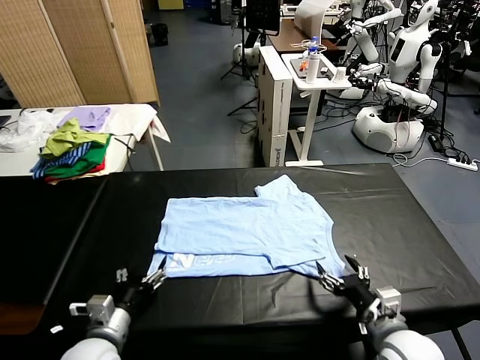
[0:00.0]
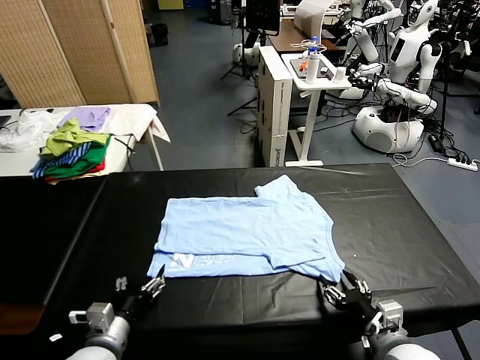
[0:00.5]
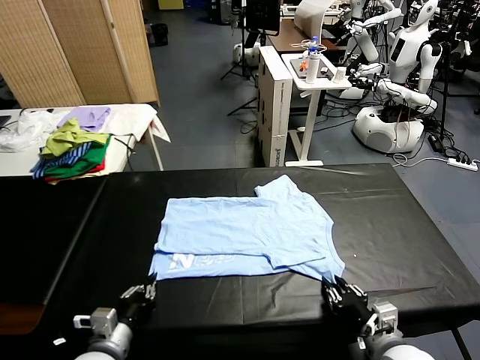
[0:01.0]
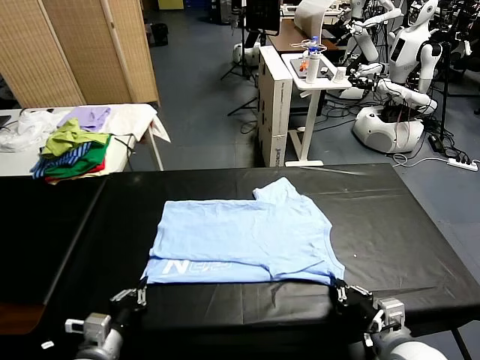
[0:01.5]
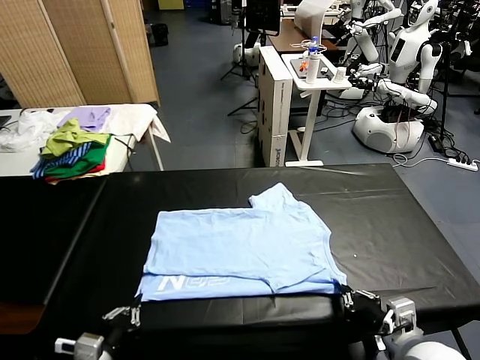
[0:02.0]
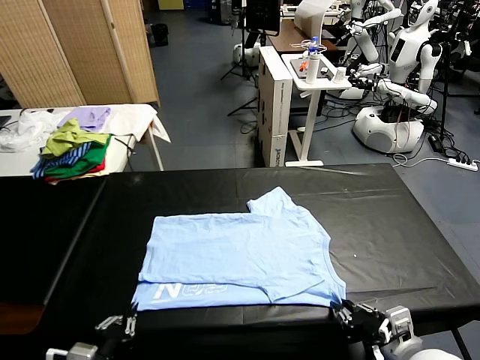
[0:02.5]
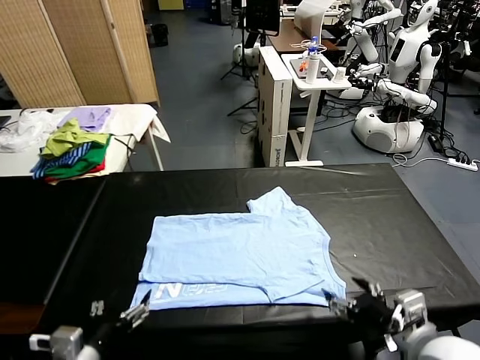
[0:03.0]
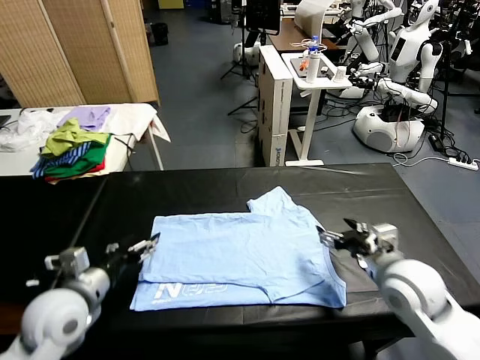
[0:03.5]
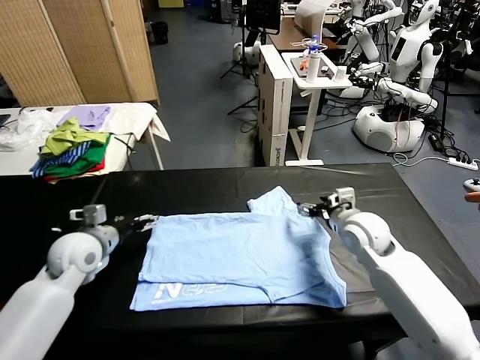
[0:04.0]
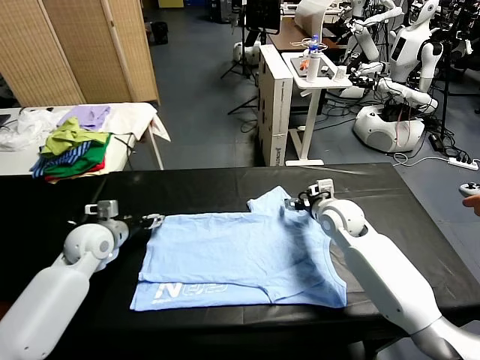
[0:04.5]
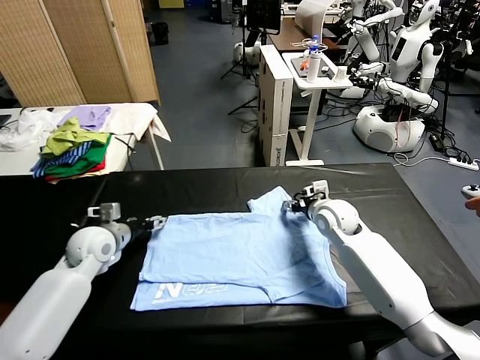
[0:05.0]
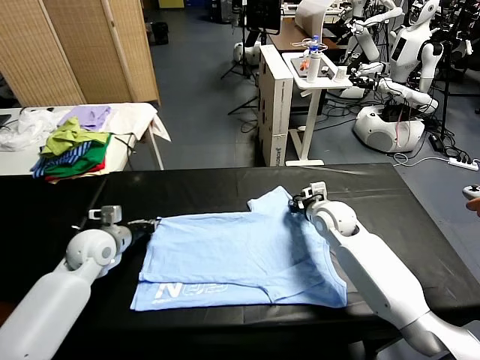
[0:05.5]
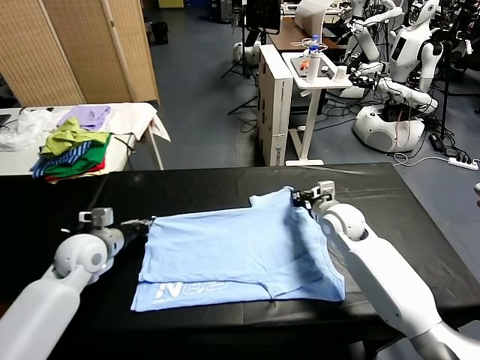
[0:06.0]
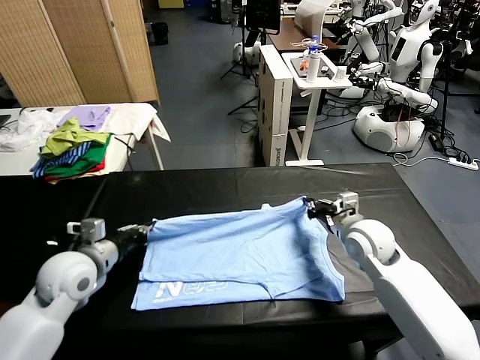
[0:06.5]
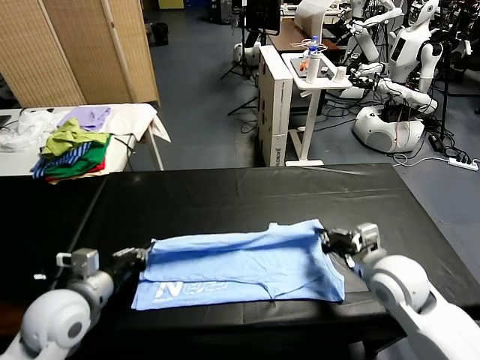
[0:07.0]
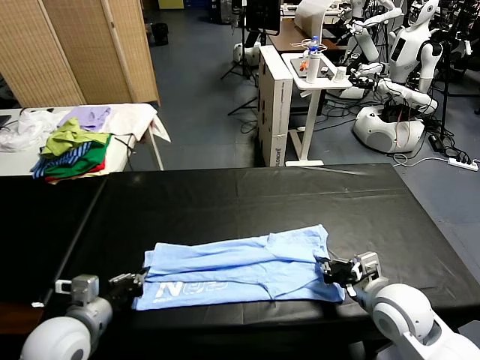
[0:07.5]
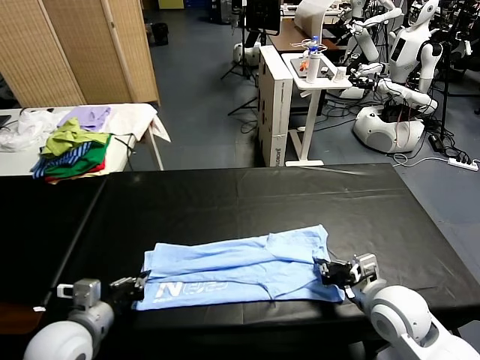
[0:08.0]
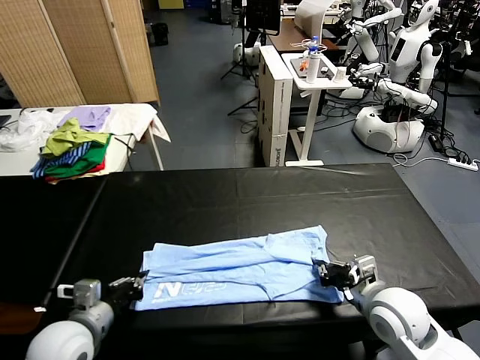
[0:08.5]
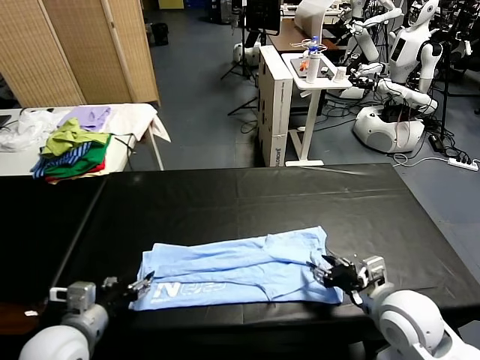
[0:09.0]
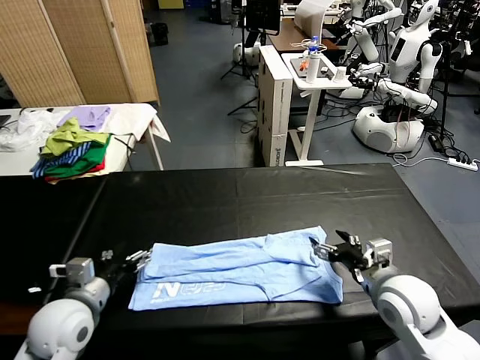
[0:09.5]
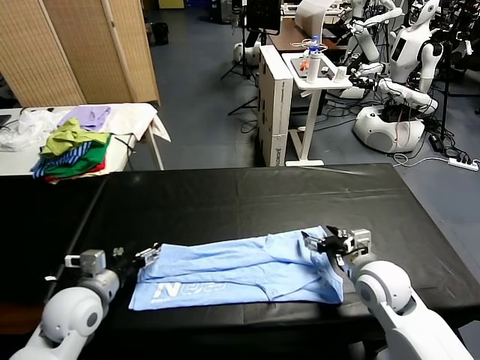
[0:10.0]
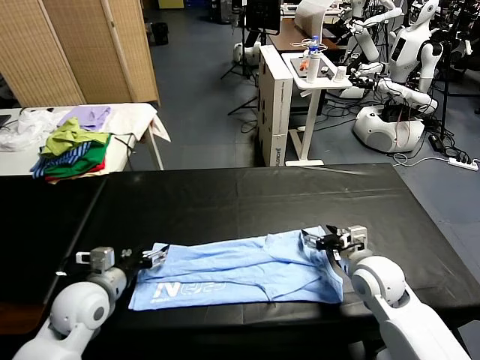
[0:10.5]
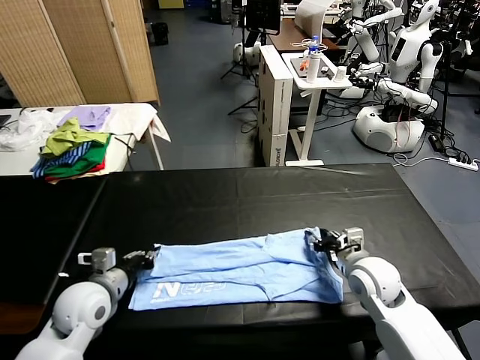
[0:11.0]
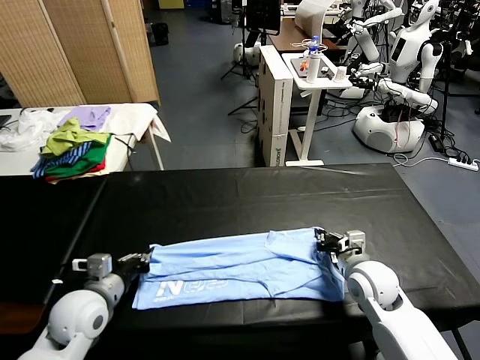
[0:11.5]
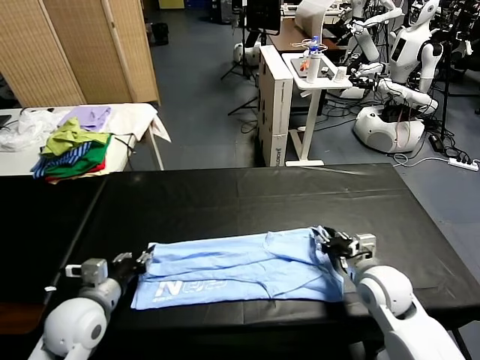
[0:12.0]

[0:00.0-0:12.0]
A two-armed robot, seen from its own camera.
Task of the whole recording: fold and organize the clothes.
Step, 0:00.0 to 0:02.5: Drag the clothes downward with both gripper.
Step, 0:03.0 to 0:05.5: use both grippers simultaneously to clamp the upper edge of the clothing fabric.
Step, 0:06.0 to 0:09.0: use both grippers to drag the upper edge of the fabric backward and fold it over the lower edge.
0:00.0 to 0:02.0: The right gripper closes up, while the left gripper moves backward, roughly 5 cm, and closes.
0:02.0 to 0:04.0: The grippers both shift forward by about 30 cm. The left gripper opens its fingers; the right gripper opens up.
0:04.0 to 0:06.0: The left gripper closes its fingers. Meanwhile the right gripper closes.
0:06.0 to 0:08.0: Both grippers move backward, roughly 20 cm.
0:08.0 to 0:10.0: The grippers both shift forward by some 5 cm. The left gripper opens up. Meanwhile the right gripper opens.
0:10.0 to 0:12.0: The right gripper closes, then opens again. The left gripper closes.

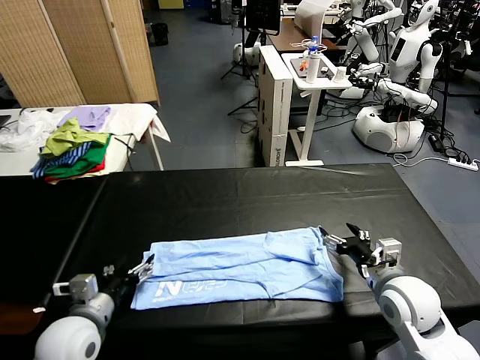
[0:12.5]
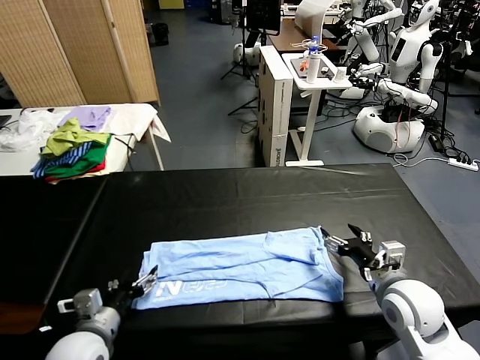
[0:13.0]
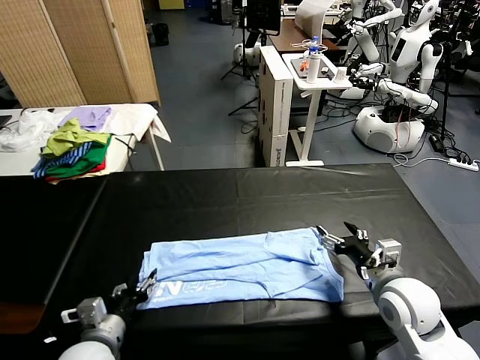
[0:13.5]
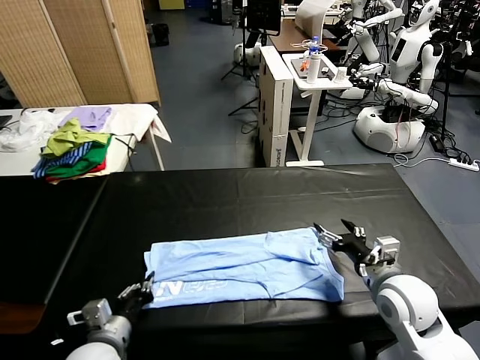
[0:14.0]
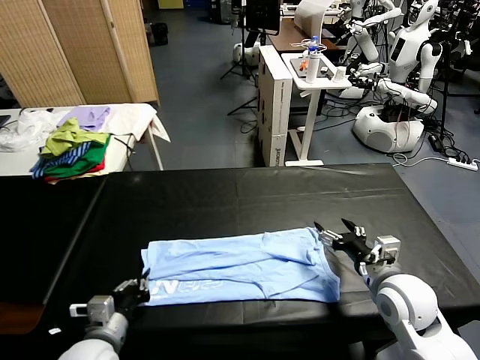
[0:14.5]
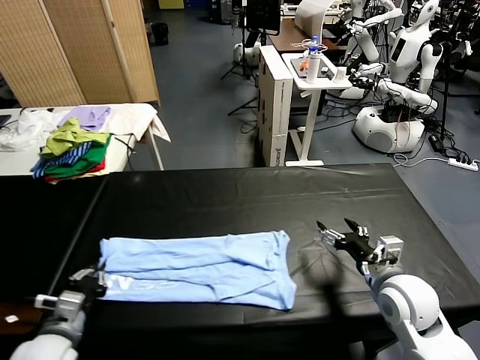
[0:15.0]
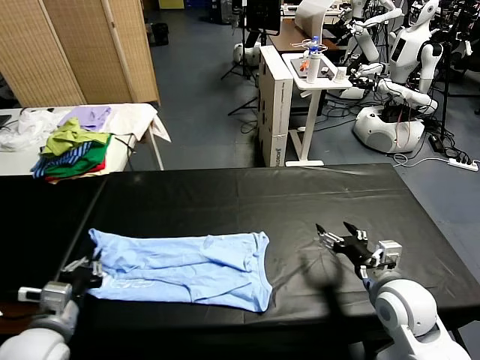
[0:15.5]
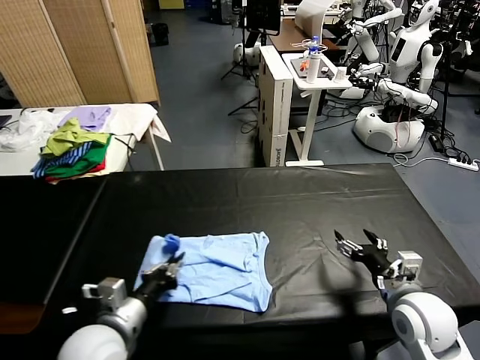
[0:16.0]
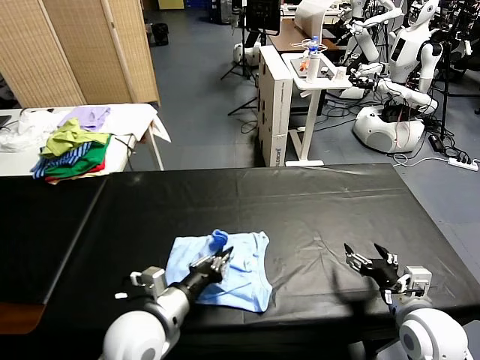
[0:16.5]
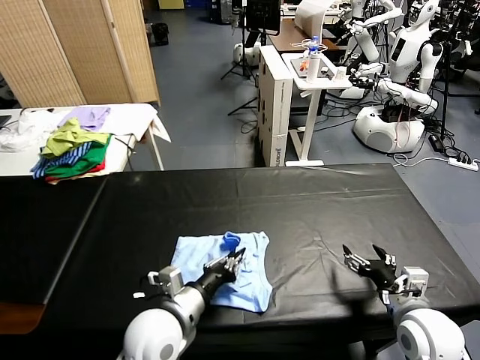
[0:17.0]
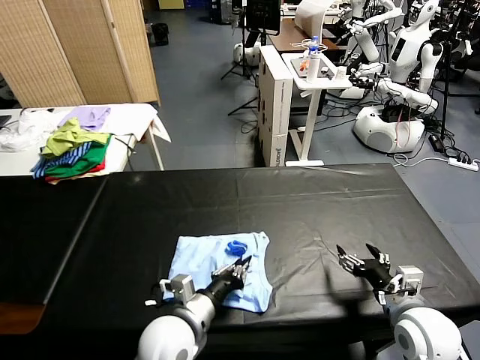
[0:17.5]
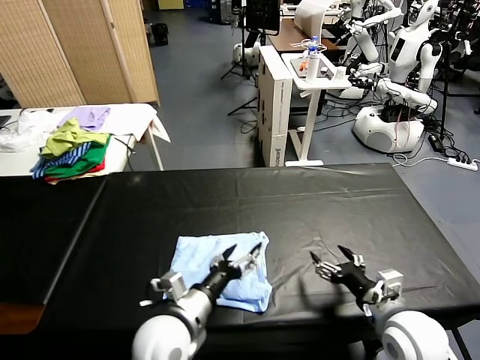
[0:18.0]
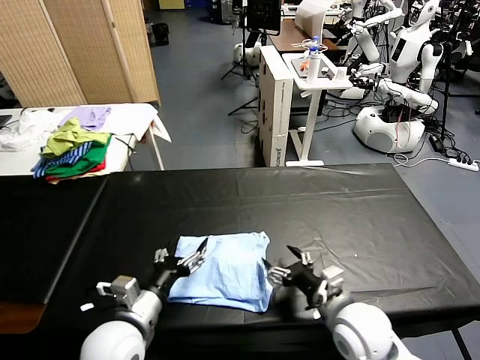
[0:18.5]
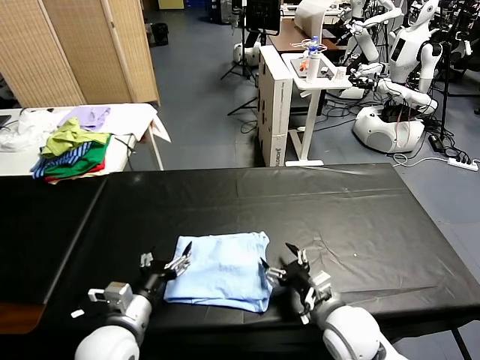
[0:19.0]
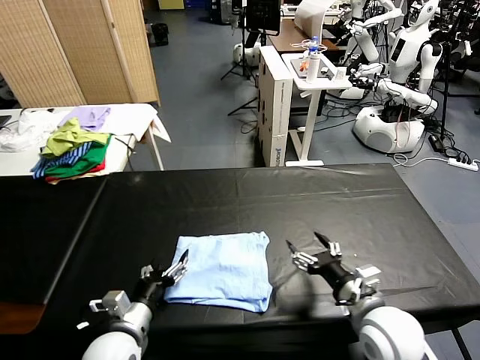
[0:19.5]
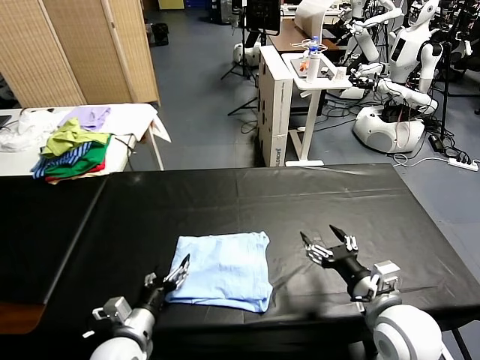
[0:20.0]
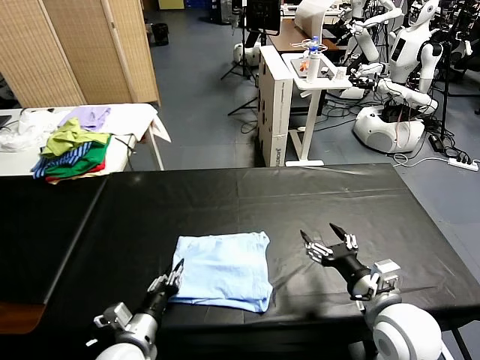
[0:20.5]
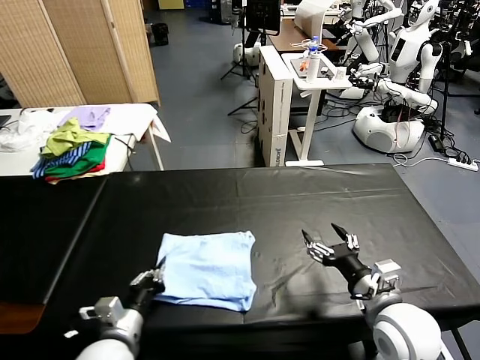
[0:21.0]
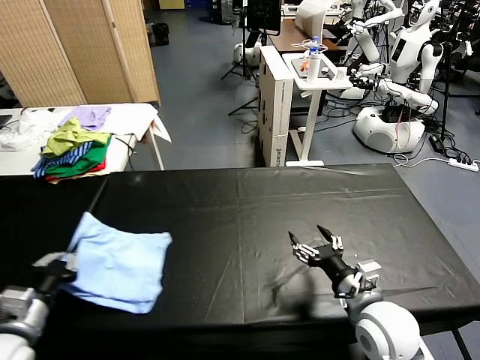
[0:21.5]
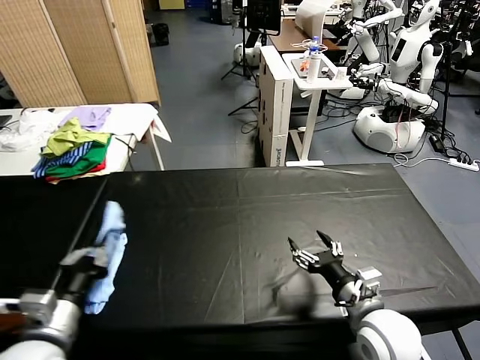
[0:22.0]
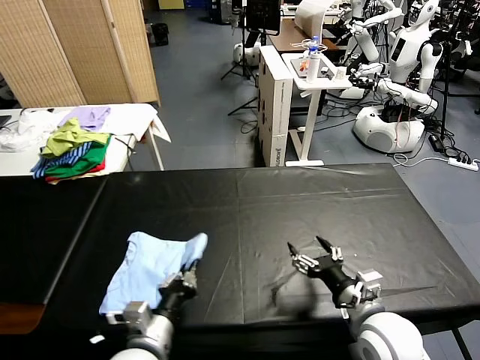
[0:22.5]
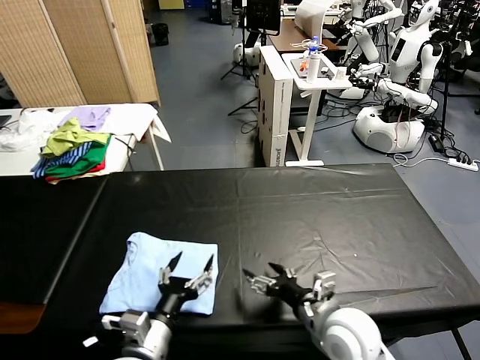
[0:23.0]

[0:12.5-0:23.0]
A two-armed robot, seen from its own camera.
Task of the whole recording: fold and organize the clothes.
Step, 0:12.5 to 0:14.5: use the left gripper to clamp the left edge of the fabric.
Step, 0:15.0 to 0:17.5: use the left gripper to drag the left edge of the fabric to the left and folds it over the right edge.
Step, 0:18.0 to 0:22.5: Flip the folded clothes over with left gripper.
0:12.5 to 0:14.5: The left gripper moves roughly 5 cm, and closes.
0:14.5 to 0:16.5: The right gripper goes some 5 cm backward, while the left gripper heads to the right and upward, covering approximately 10 cm.
0:16.5 to 0:19.0: The right gripper moves to the left, about 15 cm; the left gripper travels to the left by about 5 cm, and opens.
0:19.0 to 0:21.0: The left gripper closes. Meanwhile the right gripper moves to the right and upward, about 10 cm.
0:21.0 to 0:23.0: The left gripper goes some 10 cm to the right and upward, and opens up, while the right gripper moves to the left, some 10 cm.

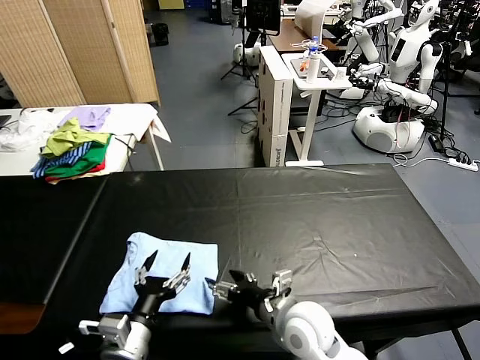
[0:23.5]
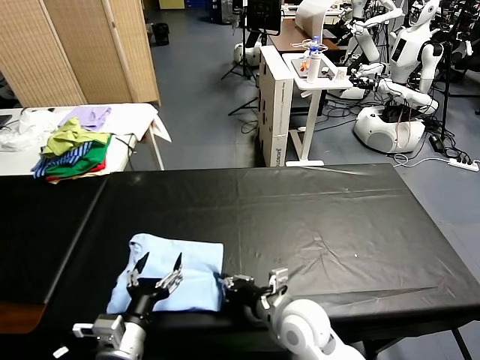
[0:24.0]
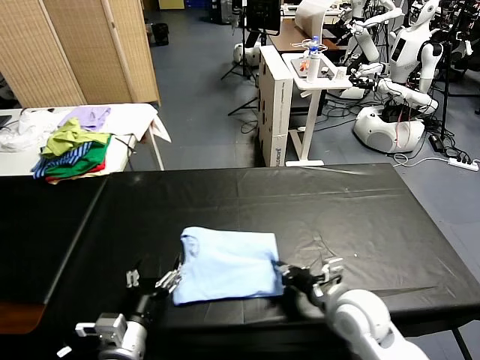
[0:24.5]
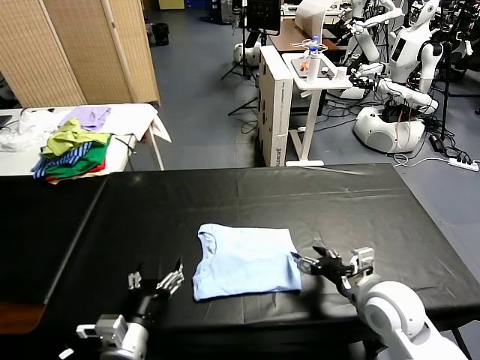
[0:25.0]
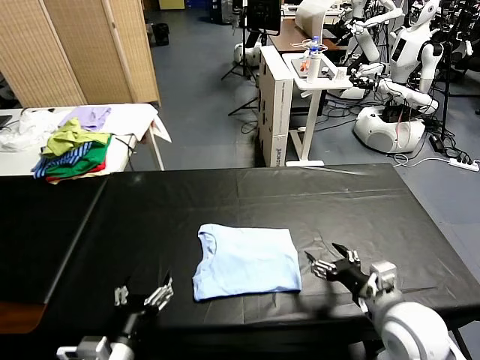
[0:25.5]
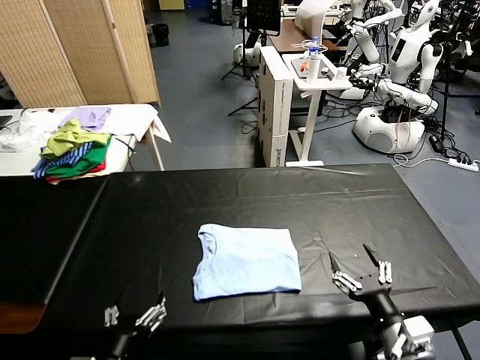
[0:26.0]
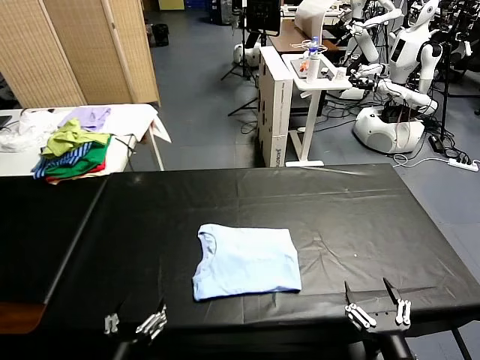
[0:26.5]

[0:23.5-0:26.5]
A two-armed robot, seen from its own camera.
Task of the whole recording: fold and organize the clothes.
Step, 0:23.5 to 0:24.5: Drag the clothes to the center of the table.
0:23.5 to 0:25.0: The right gripper travels to the right by approximately 15 cm, and closes, then reopens.
0:25.0 to 0:26.5: The right gripper heads backward, covering roughly 20 cm. Meanwhile the left gripper is displaced backward by roughly 10 cm.
